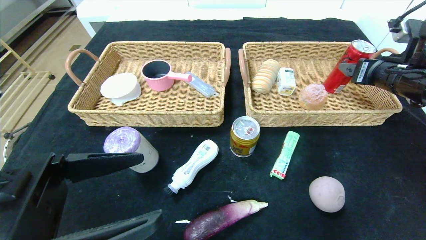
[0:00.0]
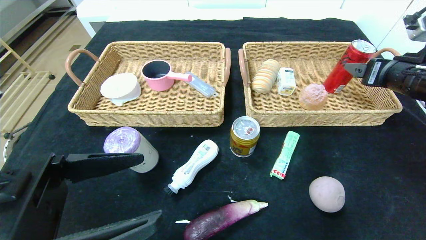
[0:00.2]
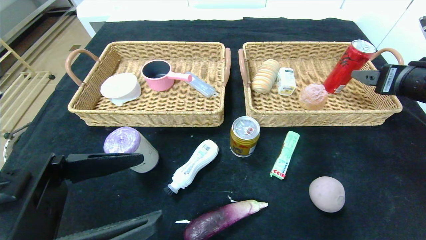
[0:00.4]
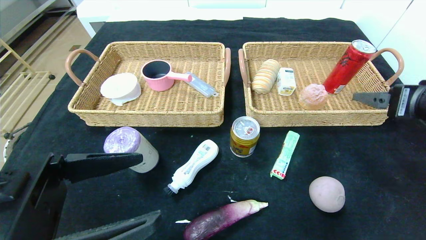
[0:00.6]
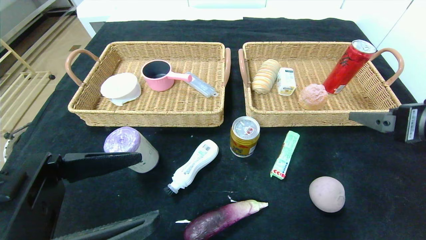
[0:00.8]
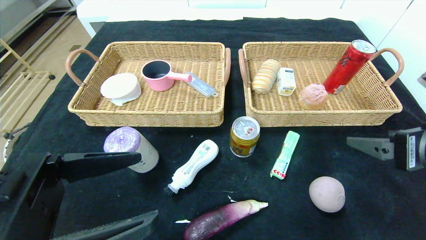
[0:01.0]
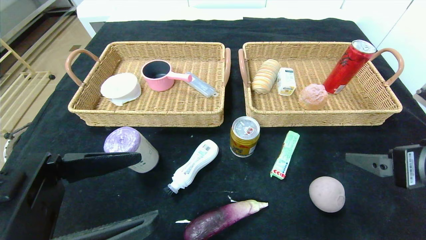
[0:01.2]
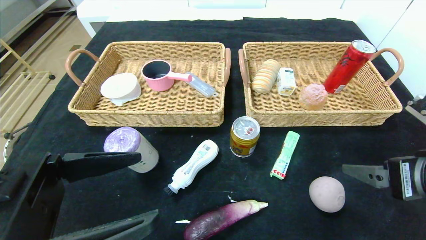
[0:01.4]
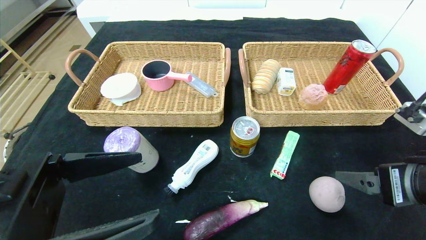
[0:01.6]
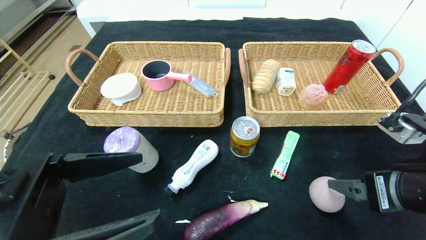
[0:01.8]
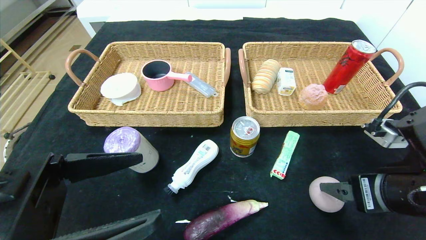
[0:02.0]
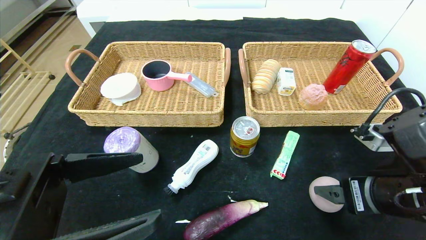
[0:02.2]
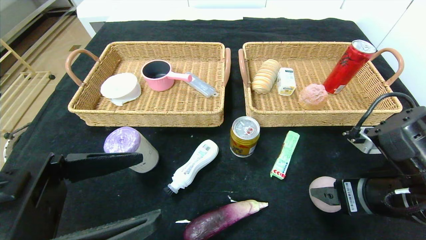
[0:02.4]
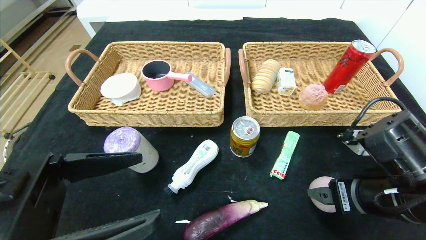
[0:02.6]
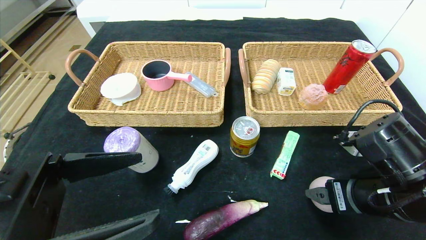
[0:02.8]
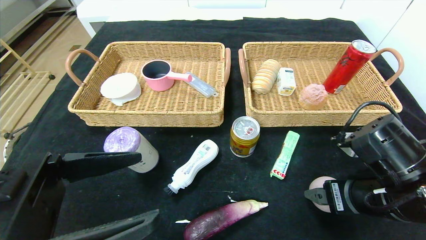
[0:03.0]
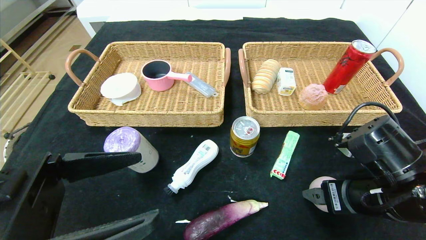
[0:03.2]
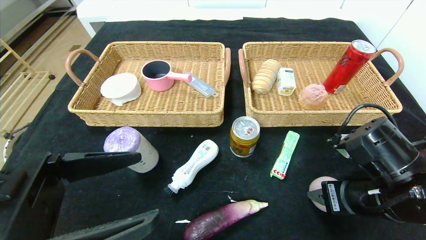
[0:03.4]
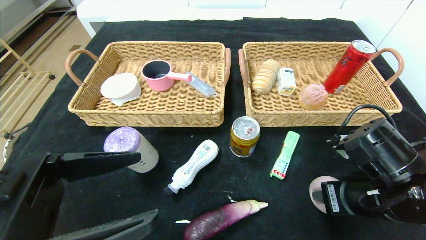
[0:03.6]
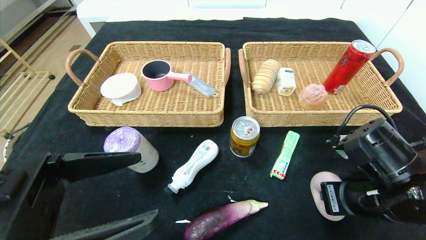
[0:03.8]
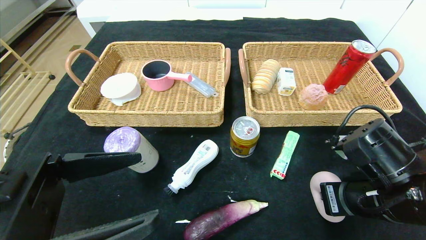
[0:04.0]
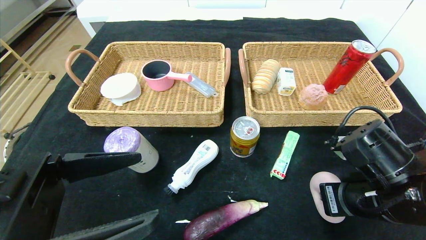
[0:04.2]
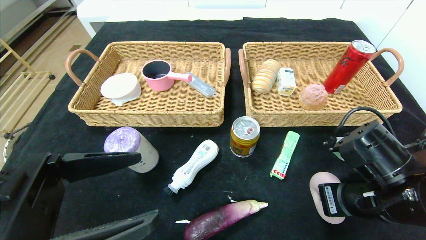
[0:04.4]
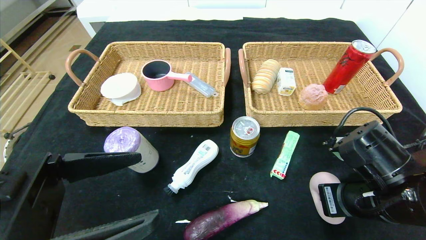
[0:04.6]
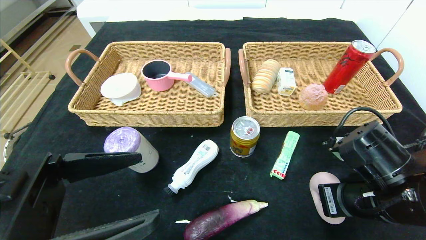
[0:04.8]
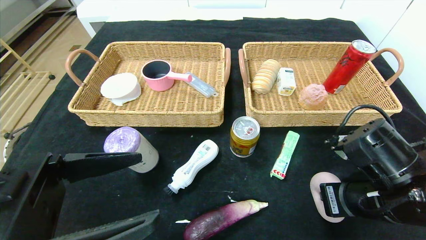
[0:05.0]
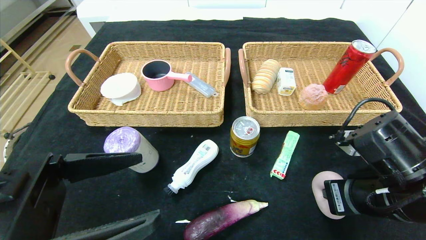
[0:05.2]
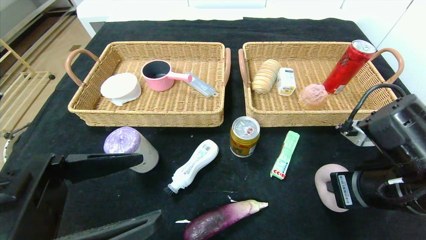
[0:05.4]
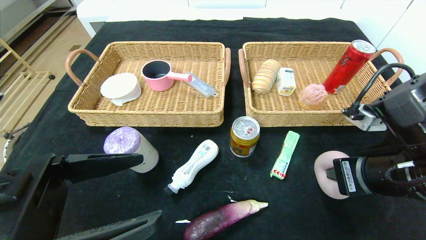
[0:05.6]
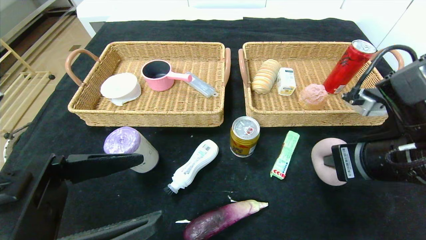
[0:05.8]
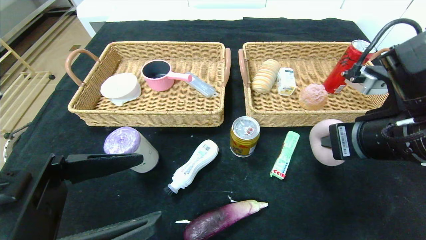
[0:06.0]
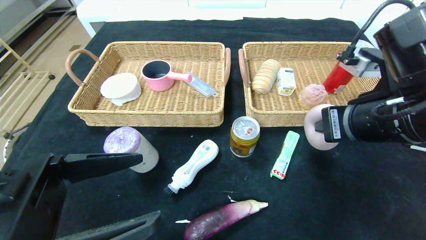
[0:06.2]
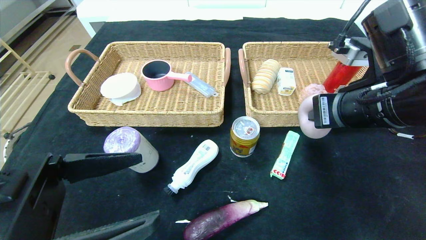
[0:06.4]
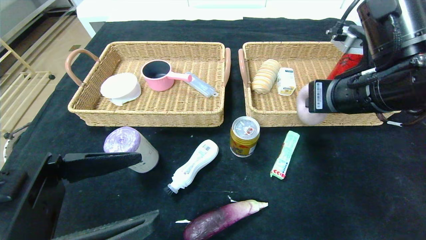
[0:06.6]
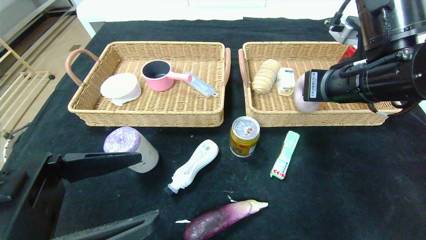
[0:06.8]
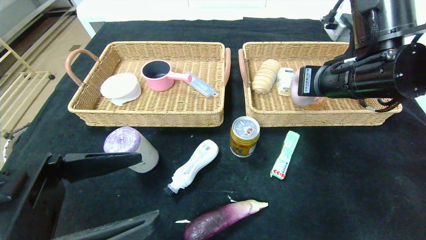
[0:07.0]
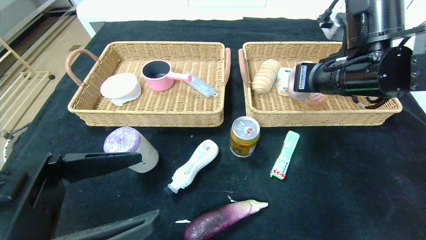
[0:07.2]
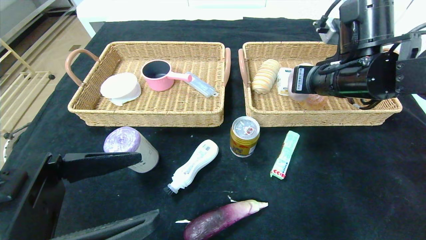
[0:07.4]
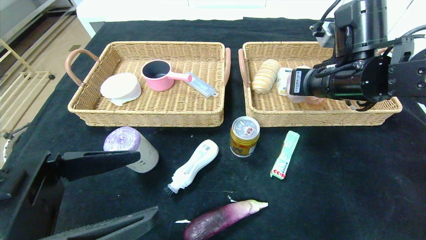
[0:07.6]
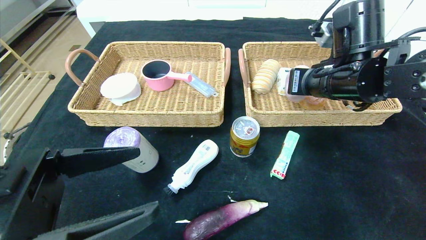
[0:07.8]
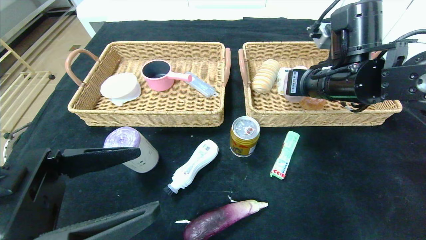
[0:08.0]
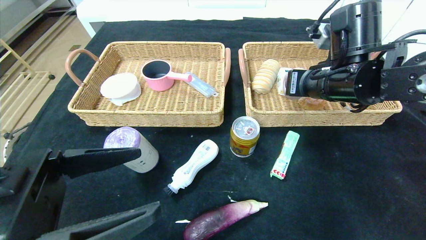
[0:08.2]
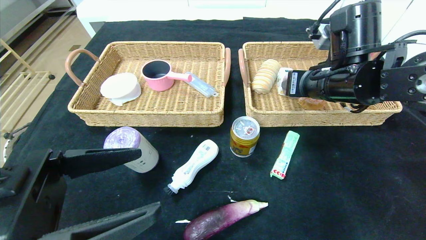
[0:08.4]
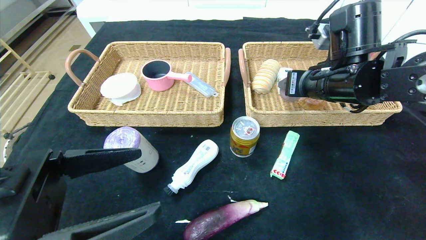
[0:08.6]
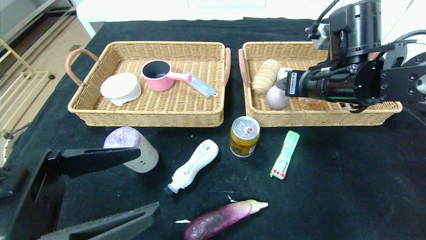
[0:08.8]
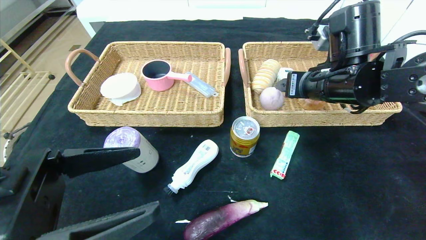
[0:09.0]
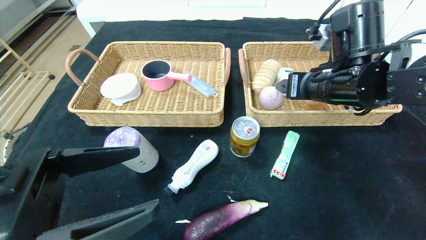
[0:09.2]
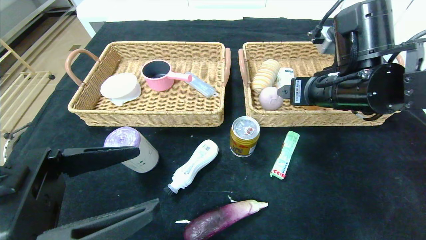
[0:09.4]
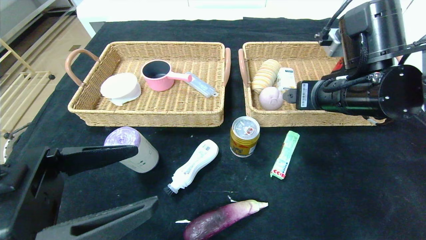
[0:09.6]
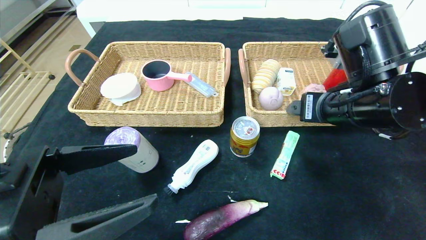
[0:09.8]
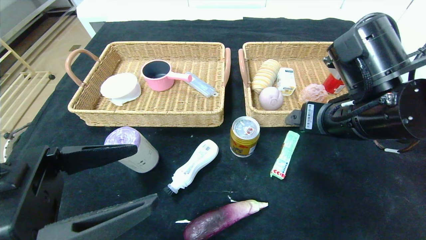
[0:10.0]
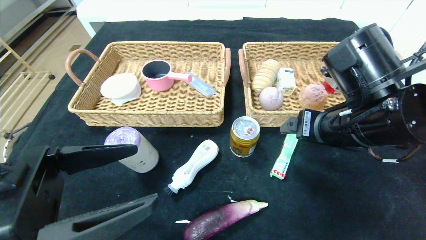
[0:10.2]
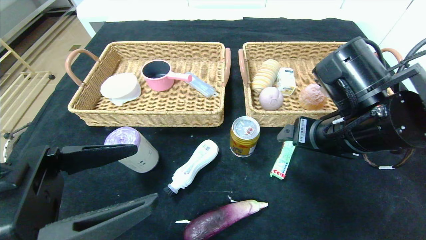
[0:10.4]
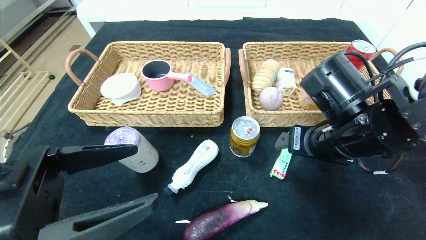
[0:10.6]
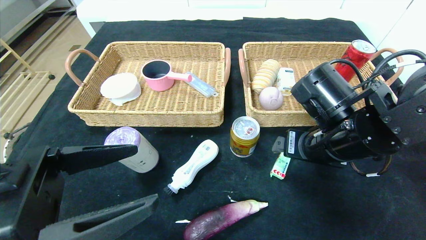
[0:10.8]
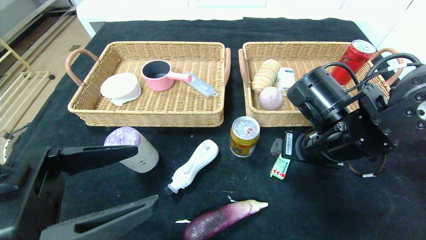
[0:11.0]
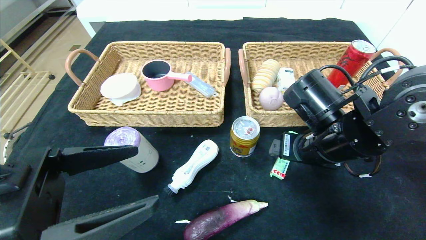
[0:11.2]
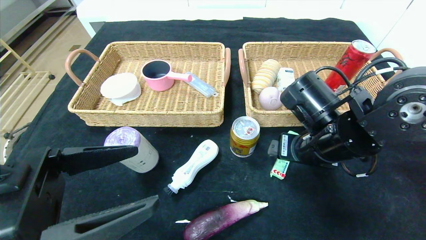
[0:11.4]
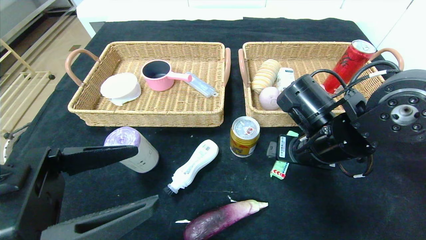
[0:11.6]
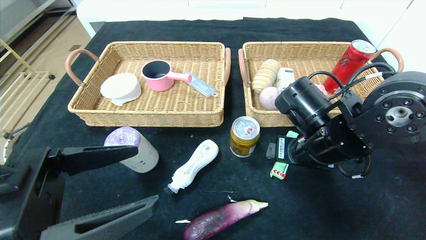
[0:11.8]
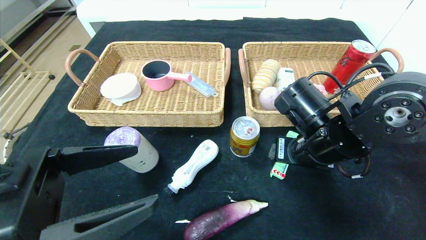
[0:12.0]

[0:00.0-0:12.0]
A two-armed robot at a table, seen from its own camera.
Step, 0:01.2 to 0:10.4: Pick up the peach and put it in the right basket.
0:00.0 to 0:01.6: The right gripper travels backward by some 20 cm.
0:01.6 to 0:03.0: The right gripper shifts approximately 5 cm downward.
0:03.0 to 0:04.4: The right gripper closes.
0:04.4 to 0:06.0: The right gripper is displaced upward by roughly 10 cm.
0:06.0 to 0:07.6: The right gripper heads forward, covering roughly 10 cm.
0:07.6 to 0:09.0: The right gripper opens its fingers.
0:09.0 to 0:10.4: The right gripper travels backward by some 10 cm.
0:10.4 to 0:12.0: The right gripper shifts by about 5 cm.

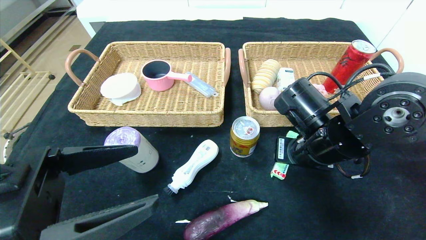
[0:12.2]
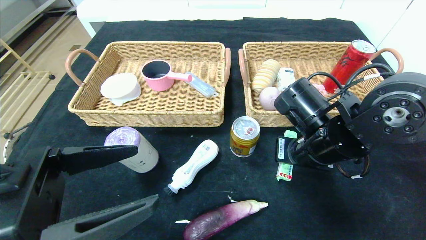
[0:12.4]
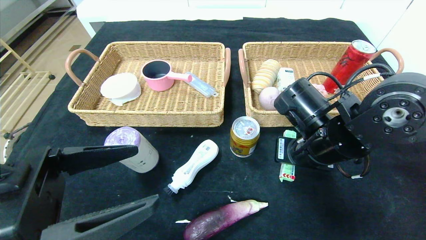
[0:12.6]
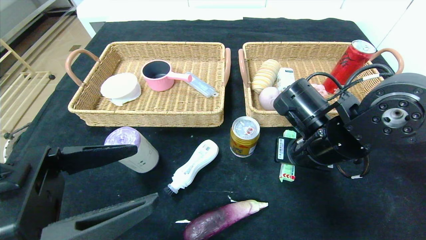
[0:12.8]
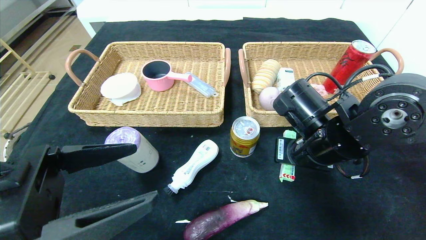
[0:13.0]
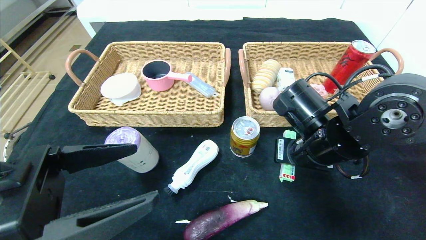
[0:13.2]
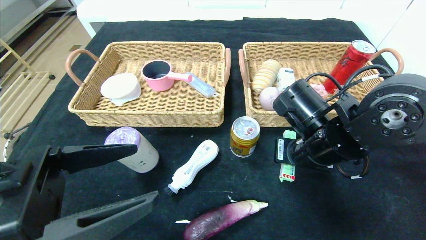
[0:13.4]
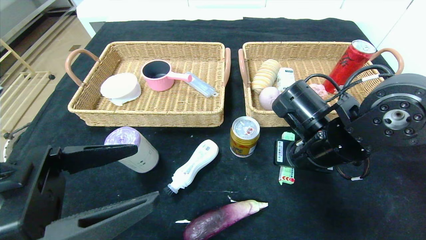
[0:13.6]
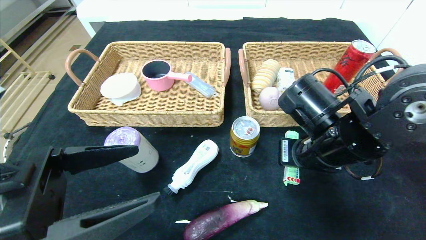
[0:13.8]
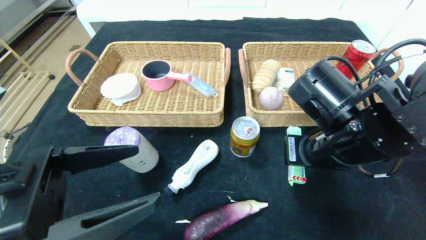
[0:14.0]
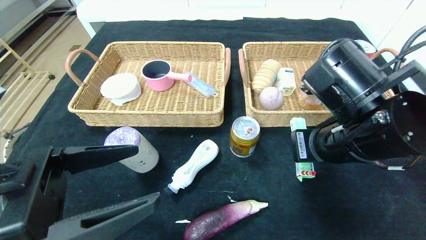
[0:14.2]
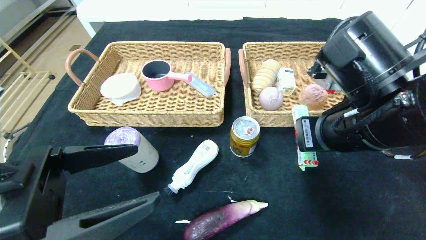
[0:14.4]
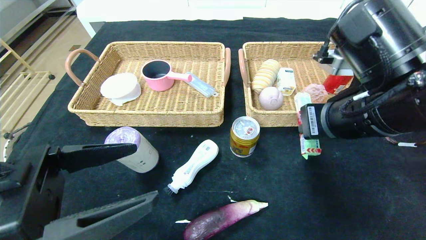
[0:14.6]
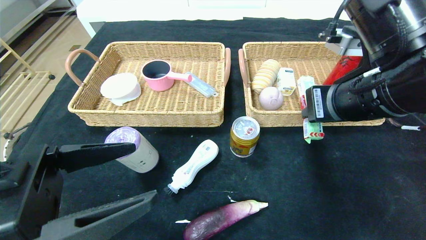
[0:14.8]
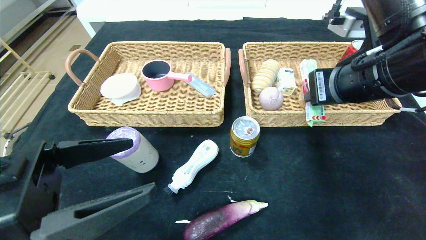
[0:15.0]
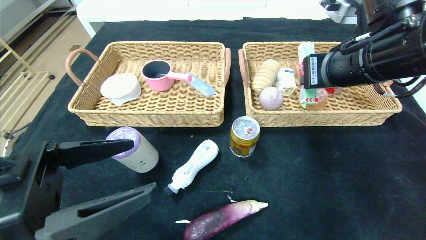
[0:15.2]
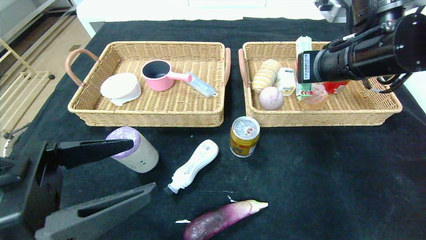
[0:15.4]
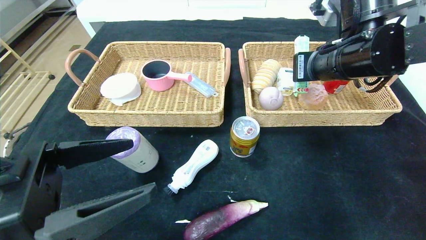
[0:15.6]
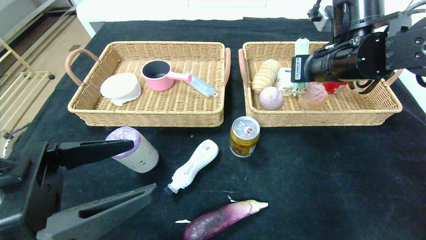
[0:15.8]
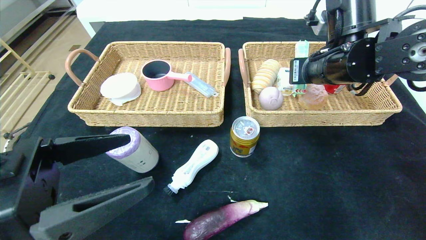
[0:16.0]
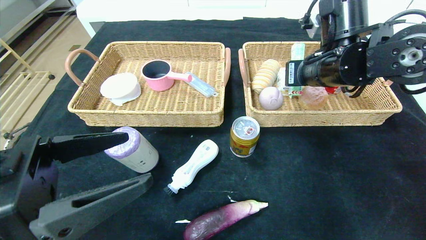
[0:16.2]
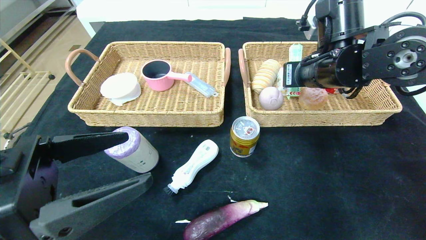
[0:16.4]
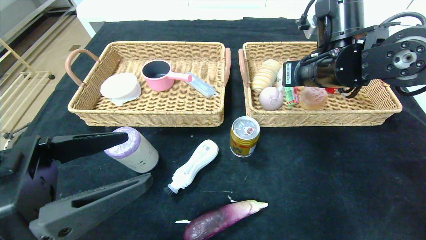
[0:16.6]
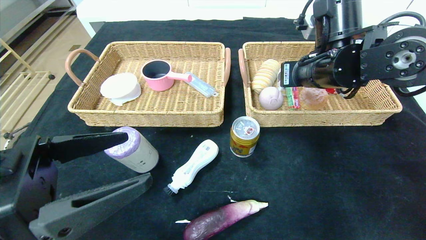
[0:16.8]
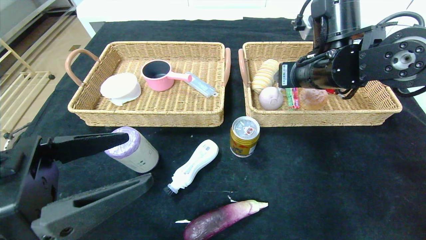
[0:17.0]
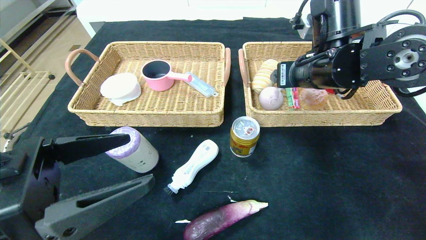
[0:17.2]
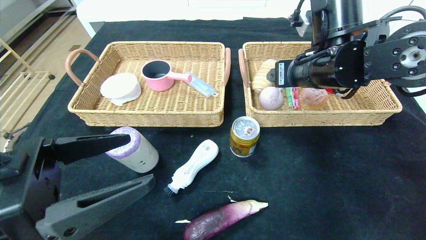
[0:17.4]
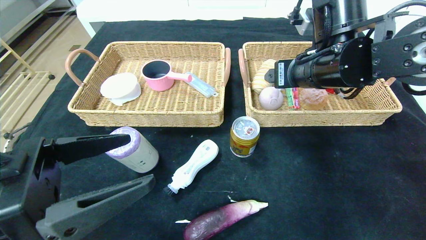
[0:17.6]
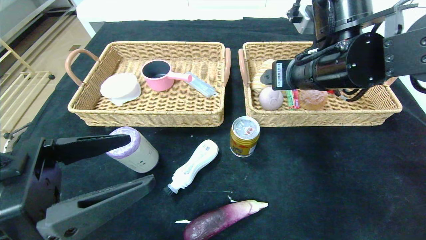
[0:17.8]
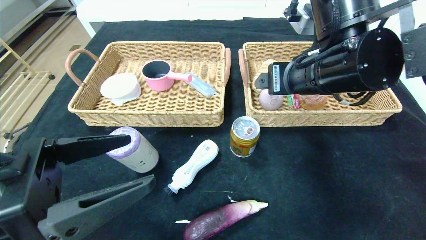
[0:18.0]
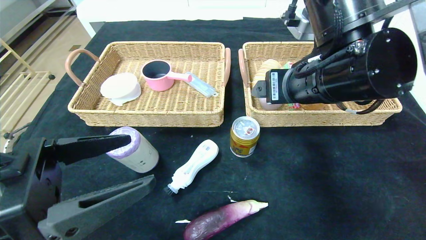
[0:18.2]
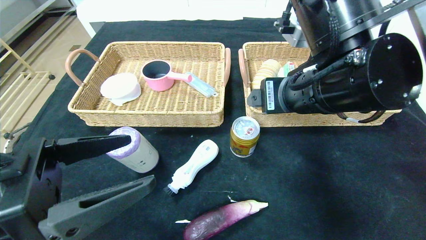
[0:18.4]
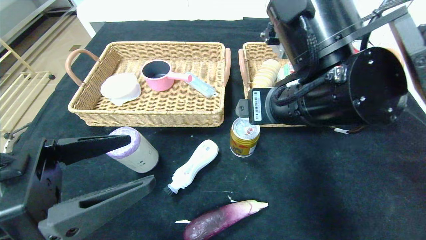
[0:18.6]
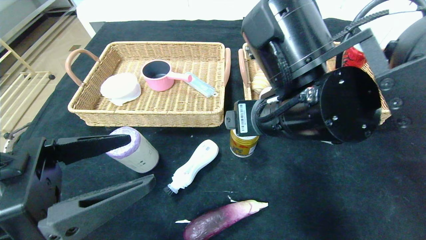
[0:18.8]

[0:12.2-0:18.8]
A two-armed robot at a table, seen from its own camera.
0:12.2 to 0:13.8: The right gripper closes up.
0:13.8 to 0:15.4: The right gripper is displaced upward by some 10 cm.
0:15.4 to 0:17.2: The right gripper shifts by about 5 cm, and opens its fingers.
0:17.2 to 0:18.8: The right gripper heads backward and to the left, covering some 15 cm.
